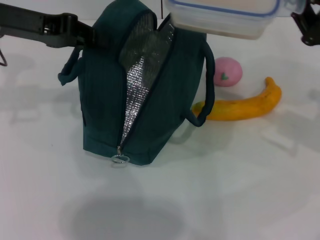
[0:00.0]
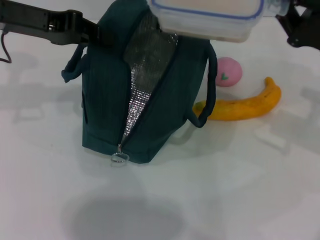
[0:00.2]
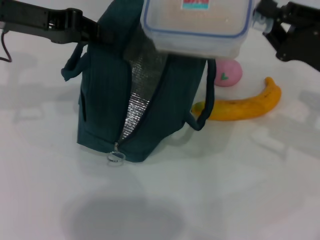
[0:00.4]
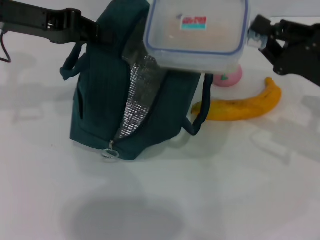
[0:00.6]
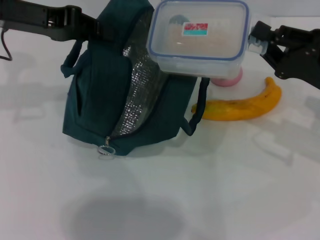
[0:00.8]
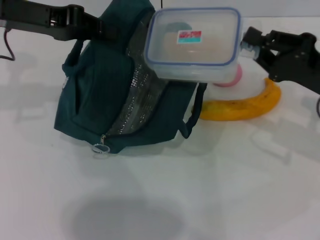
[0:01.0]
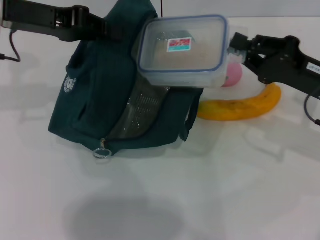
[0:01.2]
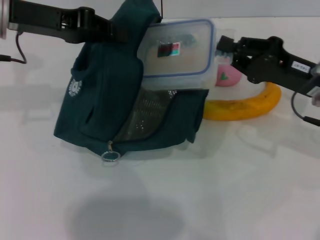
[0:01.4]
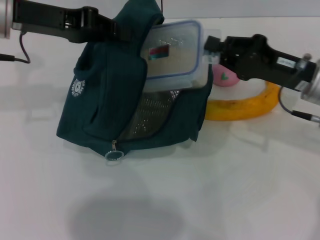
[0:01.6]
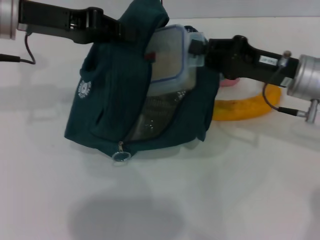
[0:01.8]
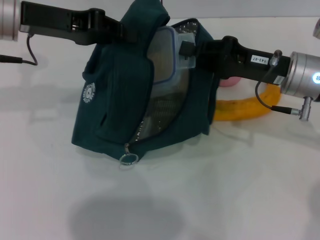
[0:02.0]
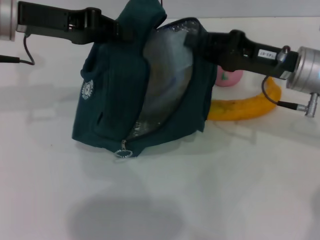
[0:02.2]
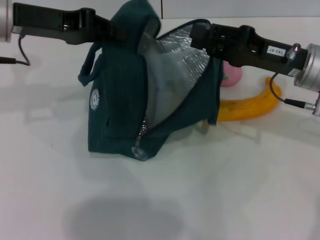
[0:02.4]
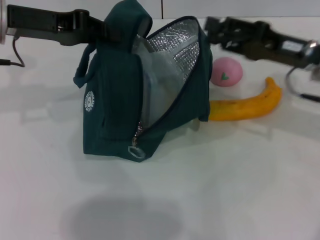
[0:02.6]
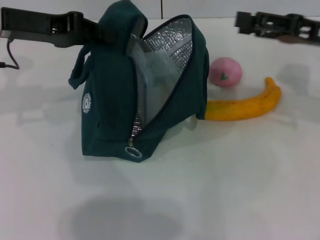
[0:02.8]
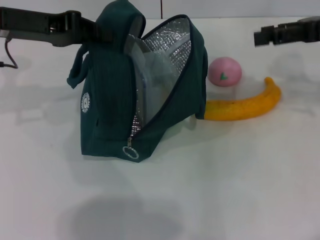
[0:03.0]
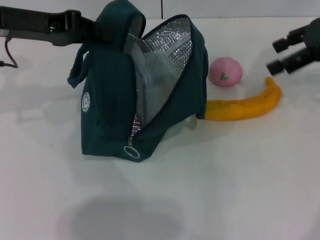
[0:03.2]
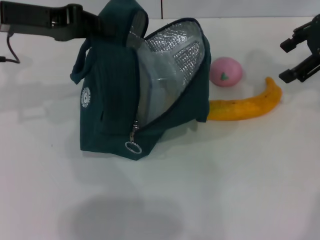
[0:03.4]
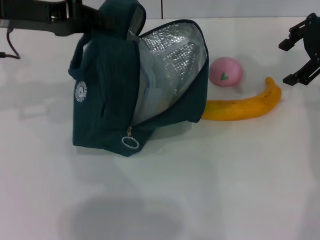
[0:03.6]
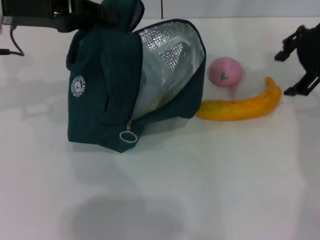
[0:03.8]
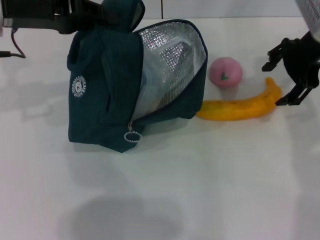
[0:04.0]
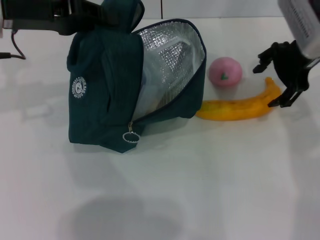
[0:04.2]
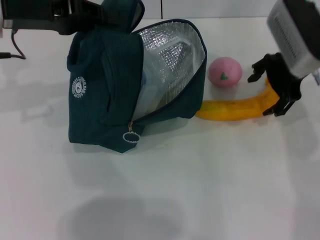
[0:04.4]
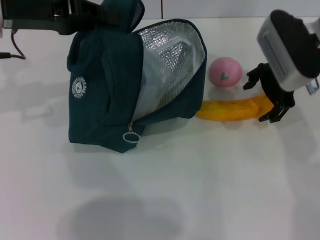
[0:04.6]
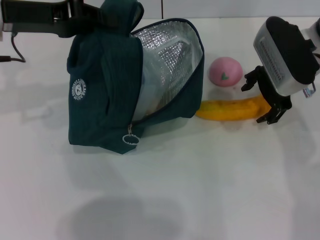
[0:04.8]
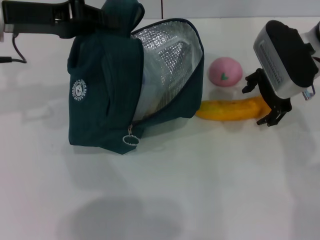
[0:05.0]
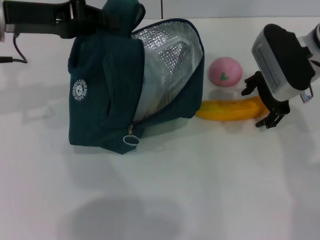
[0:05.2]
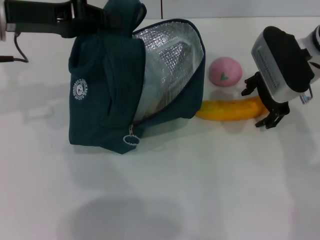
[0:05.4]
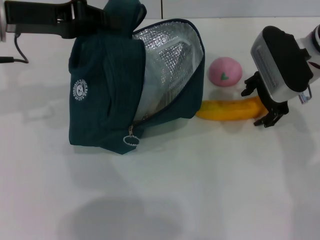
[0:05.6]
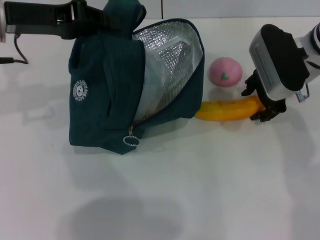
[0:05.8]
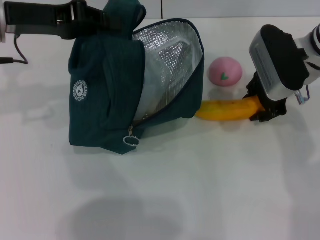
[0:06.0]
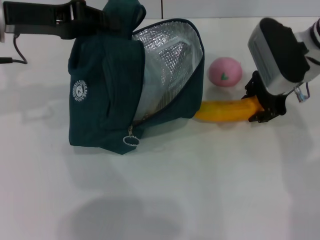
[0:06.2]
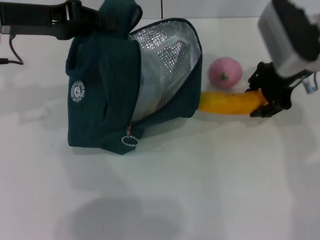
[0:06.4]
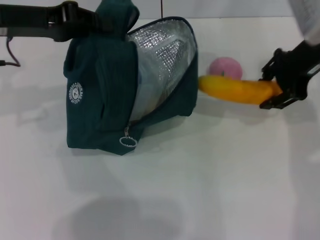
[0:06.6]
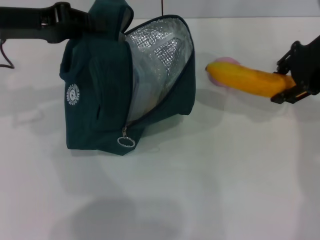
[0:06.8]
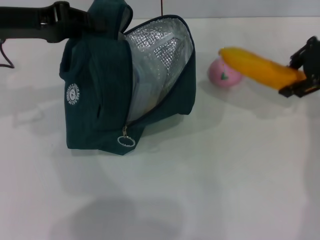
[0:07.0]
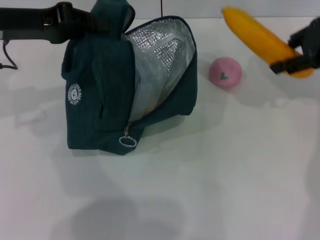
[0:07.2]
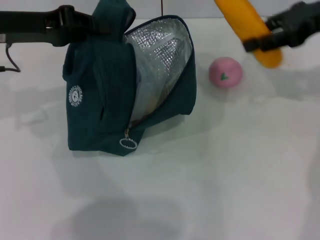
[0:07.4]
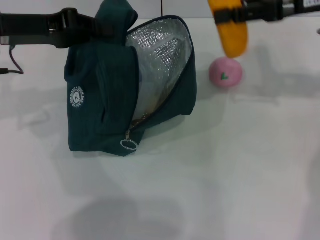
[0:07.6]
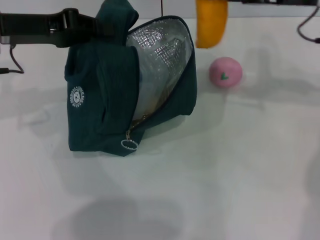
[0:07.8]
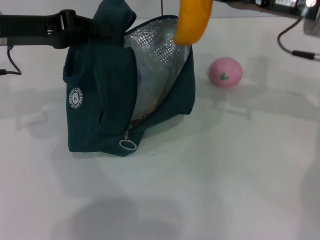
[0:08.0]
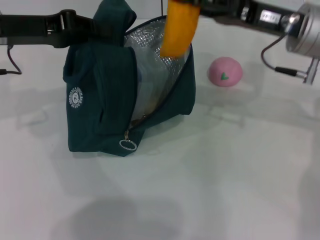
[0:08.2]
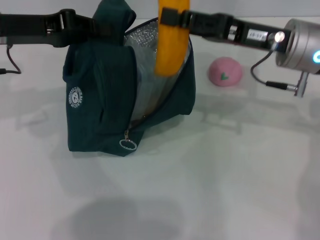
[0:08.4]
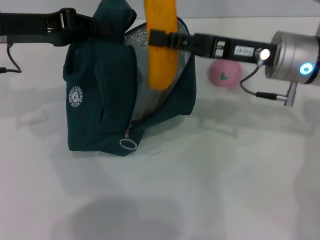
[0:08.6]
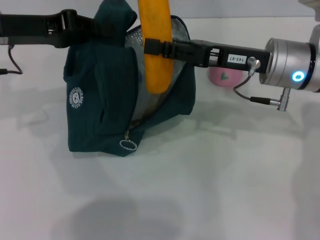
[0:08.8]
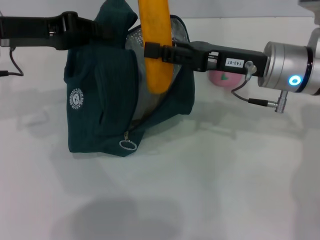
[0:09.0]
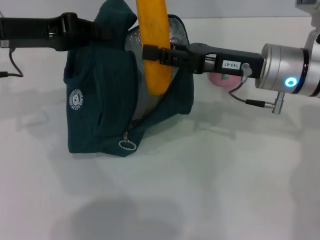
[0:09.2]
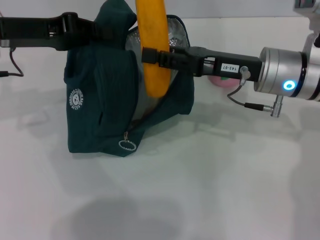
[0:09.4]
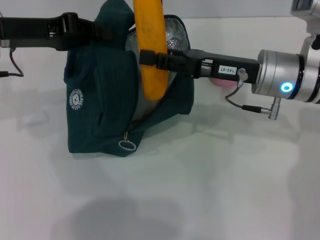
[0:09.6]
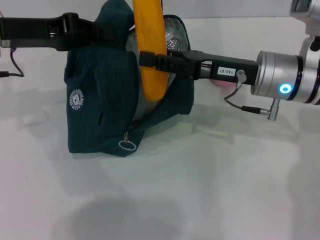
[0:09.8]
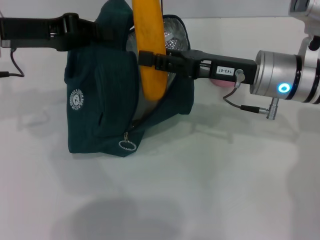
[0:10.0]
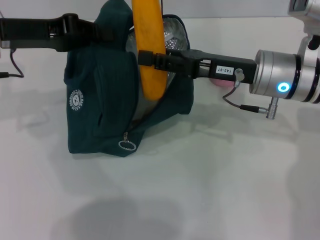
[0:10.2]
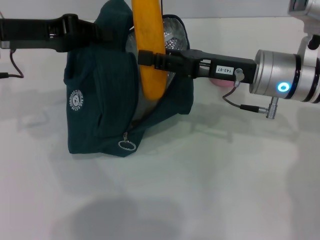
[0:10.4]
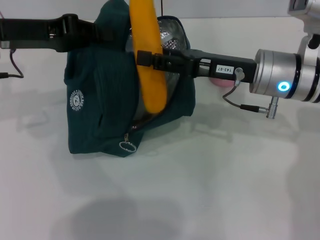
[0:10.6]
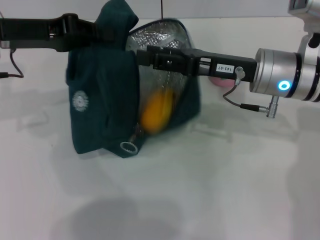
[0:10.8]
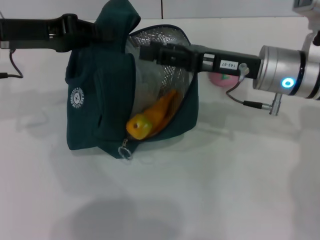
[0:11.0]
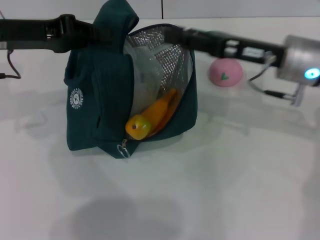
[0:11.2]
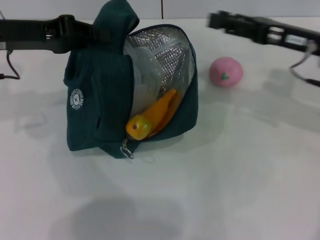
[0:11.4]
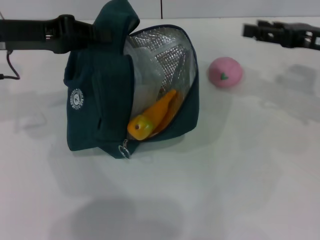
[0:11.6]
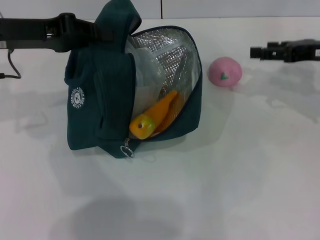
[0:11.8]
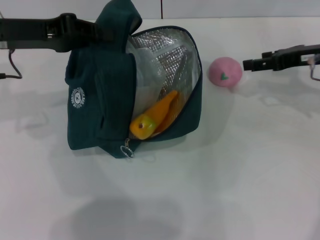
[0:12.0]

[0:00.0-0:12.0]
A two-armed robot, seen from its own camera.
Step, 0:00.0 to 0:02.8: Place the lunch box into the lunch bag with your right hand.
Step, 0:03.0 to 0:05.8: Take the banana with your right hand.
Step, 0:06.0 to 0:11.2: Put the banana into the lunch bag with your right hand.
0:00.0 to 0:01.6: The right gripper travels to the left by approximately 5 cm.
0:01.6 to 0:03.0: The right gripper goes some 15 cm upward and to the right, and opens its fingers.
0:03.0 to 0:04.4: The right gripper goes roughly 10 cm to the left.
0:04.4 to 0:06.0: The grippers stay close to where they were, moving slightly.
0:06.0 to 0:07.6: The right gripper shifts roughly 10 cm upward and to the right.
0:07.6 to 0:09.0: The right gripper shifts some 15 cm downward and to the left.
0:09.0 to 0:10.4: Both grippers stay put.
0:10.4 to 0:12.0: The right gripper goes some 15 cm to the right and forward.

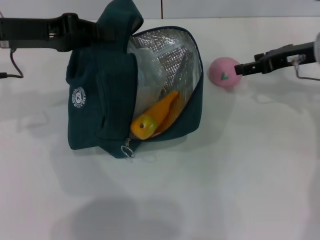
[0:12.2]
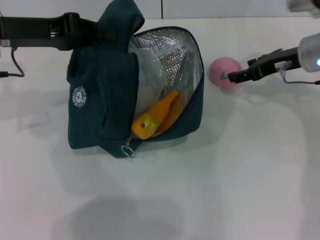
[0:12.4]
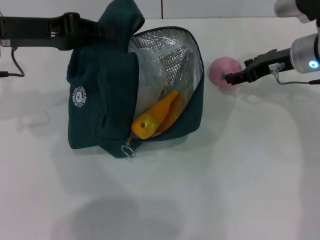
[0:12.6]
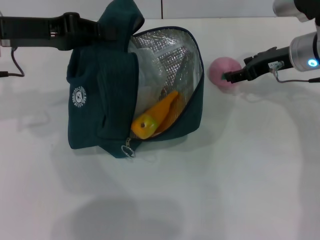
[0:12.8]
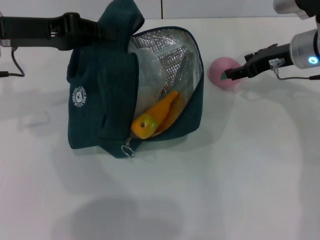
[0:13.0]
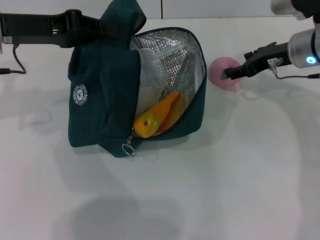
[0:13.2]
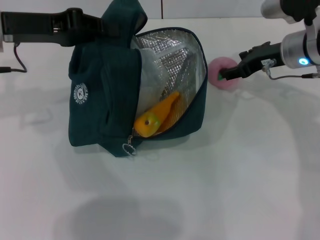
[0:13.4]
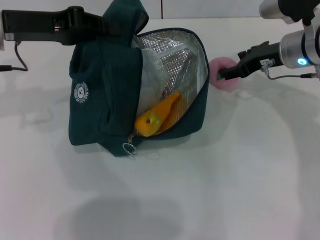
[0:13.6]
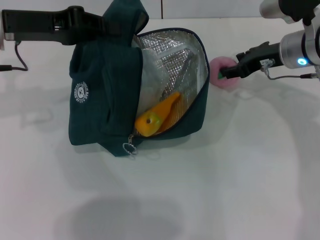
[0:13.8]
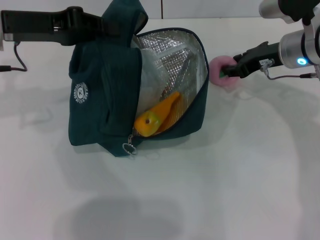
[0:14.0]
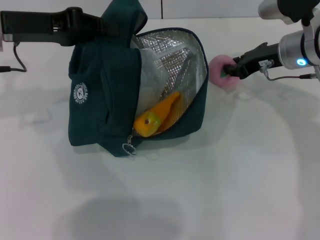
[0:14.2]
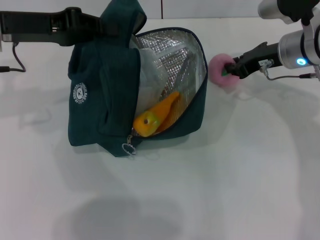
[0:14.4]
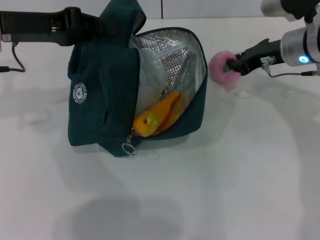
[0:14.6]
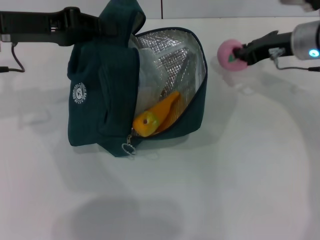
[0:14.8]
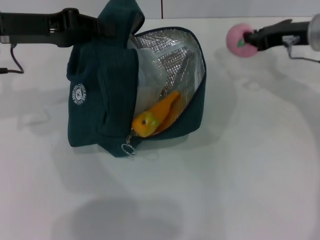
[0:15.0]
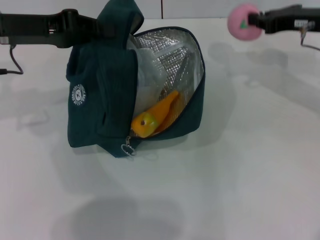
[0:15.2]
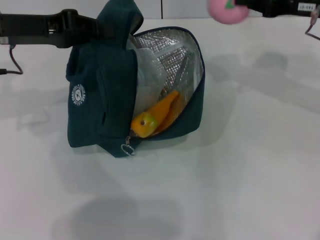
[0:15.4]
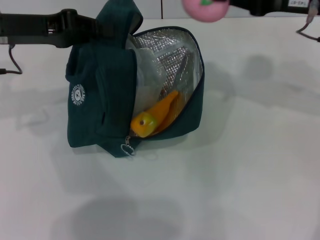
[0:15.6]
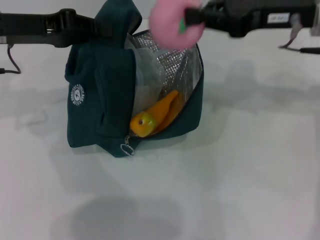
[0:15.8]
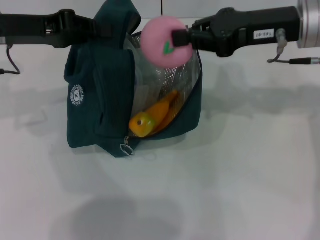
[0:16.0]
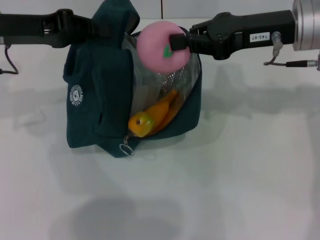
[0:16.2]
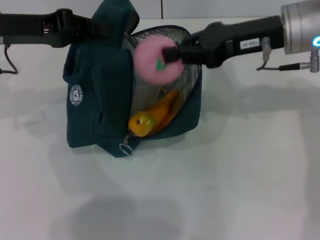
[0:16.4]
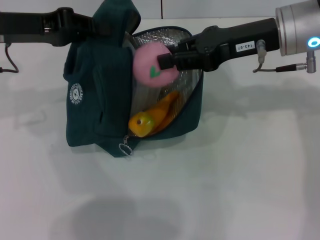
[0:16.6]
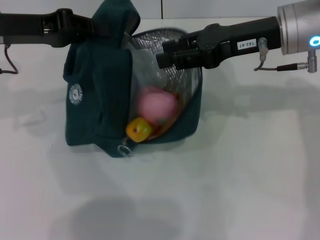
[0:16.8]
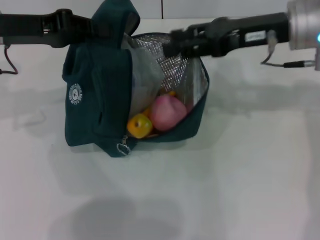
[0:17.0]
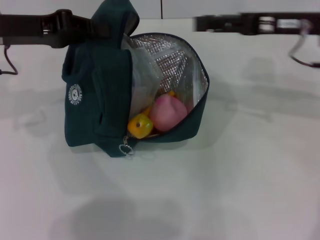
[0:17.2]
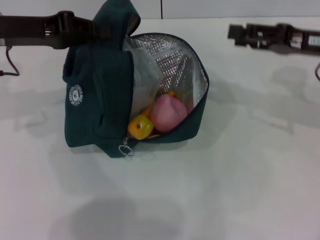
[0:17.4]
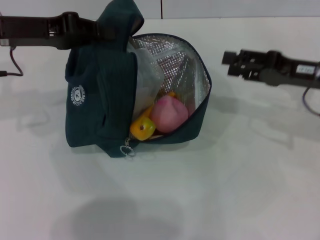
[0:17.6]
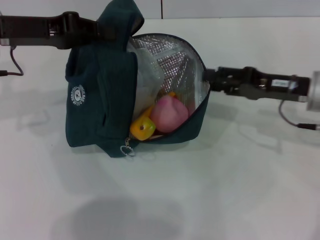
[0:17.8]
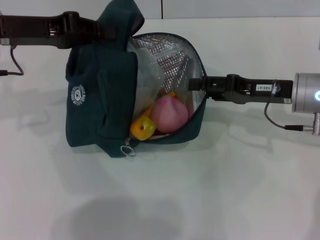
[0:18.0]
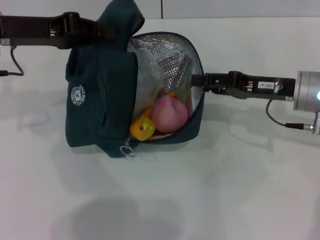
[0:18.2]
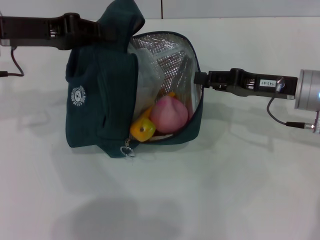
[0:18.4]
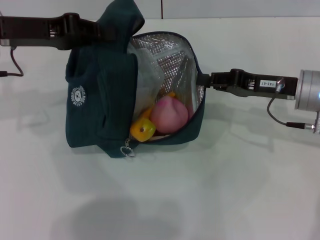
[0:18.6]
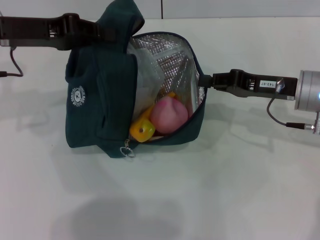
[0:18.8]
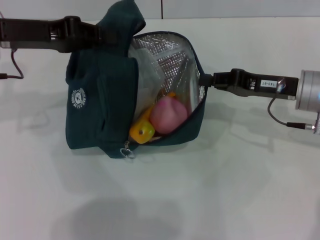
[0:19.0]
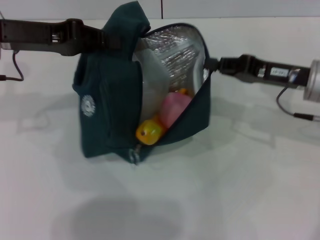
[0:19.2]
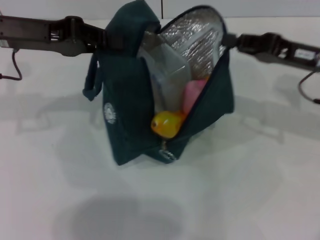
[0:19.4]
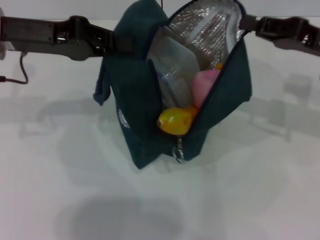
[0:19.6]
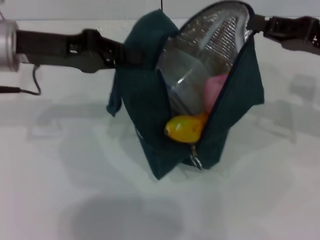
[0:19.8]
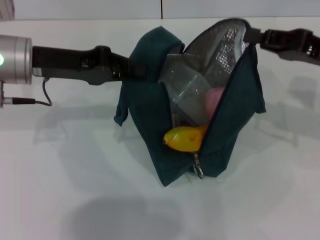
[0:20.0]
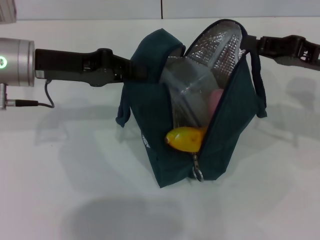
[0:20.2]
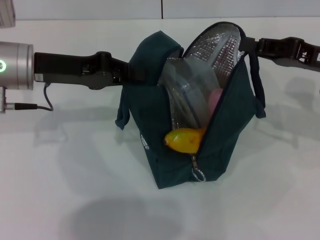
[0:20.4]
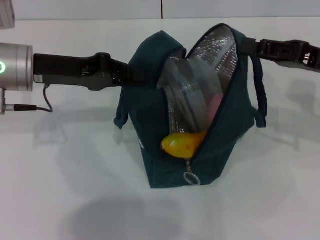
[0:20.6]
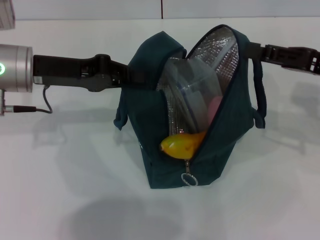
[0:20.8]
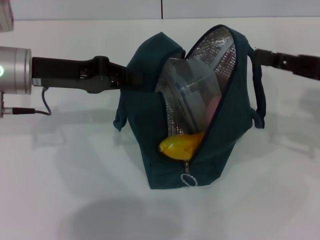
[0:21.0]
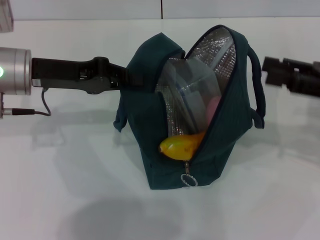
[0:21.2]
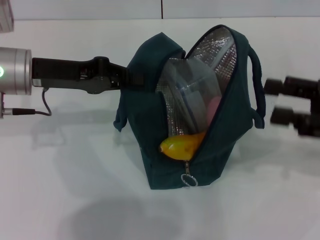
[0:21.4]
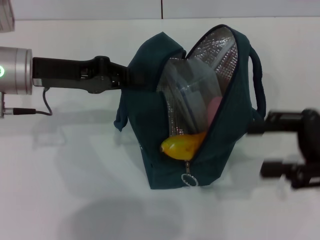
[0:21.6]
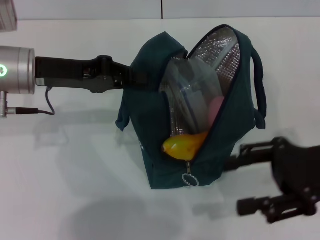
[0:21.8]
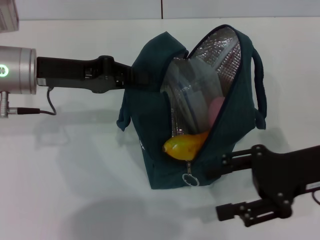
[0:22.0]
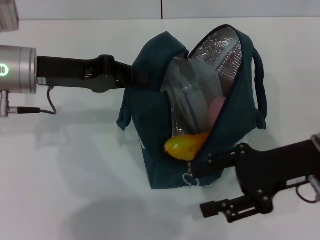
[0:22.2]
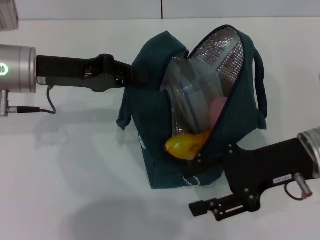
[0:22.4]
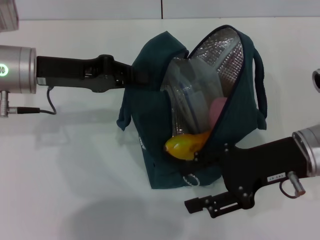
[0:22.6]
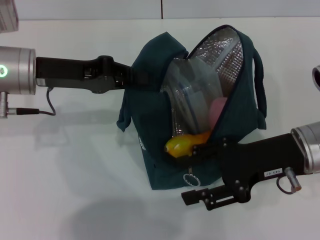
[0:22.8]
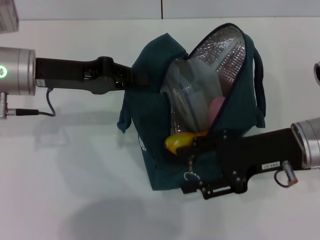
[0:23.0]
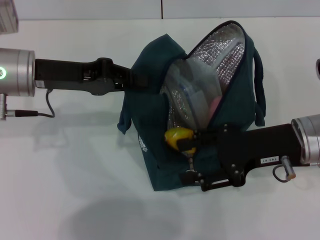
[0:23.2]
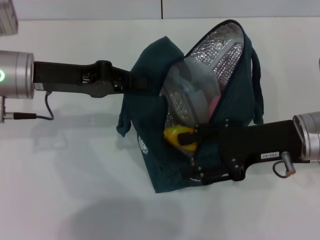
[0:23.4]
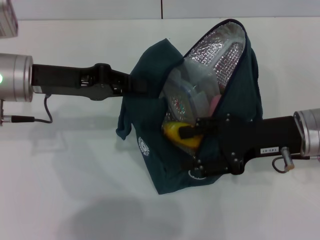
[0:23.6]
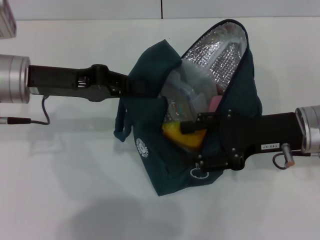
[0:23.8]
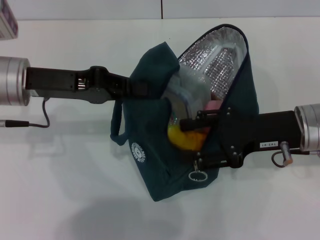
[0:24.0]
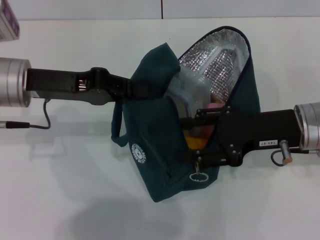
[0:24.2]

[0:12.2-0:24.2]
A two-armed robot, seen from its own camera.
Step, 0:12.2 to 0:14.4: Grab the peach with your right hand.
Step, 0:18.2 to 0:21.2: Hold the lunch bag with your right hand.
0:12.2 to 0:13.8: The right gripper ends up roughly 5 cm from where it was.
0:13.8 to 0:15.2: The right gripper goes about 5 cm to the right and upward, and closes up.
0:15.2 to 0:16.6: The right gripper shifts some 10 cm to the left.
0:16.6 to 0:18.2: The right gripper travels downward and to the right by approximately 10 cm, and opens.
0:18.2 to 0:19.8: The right gripper goes about 10 cm upward and to the right, and closes up.
0:19.8 to 0:21.2: The right gripper moves approximately 5 cm, and opens its fingers.
0:21.2 to 0:22.6: The right gripper shifts some 10 cm to the left.
